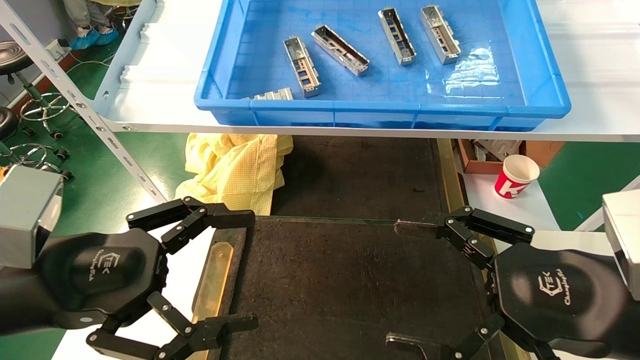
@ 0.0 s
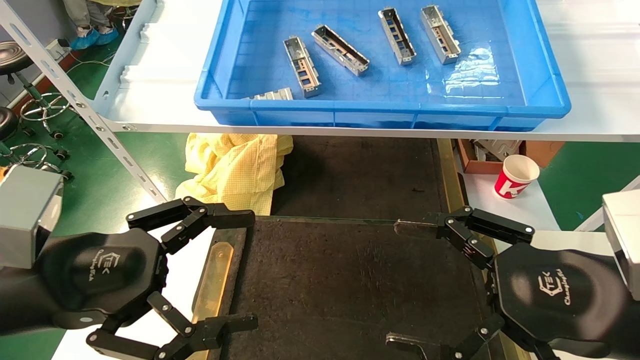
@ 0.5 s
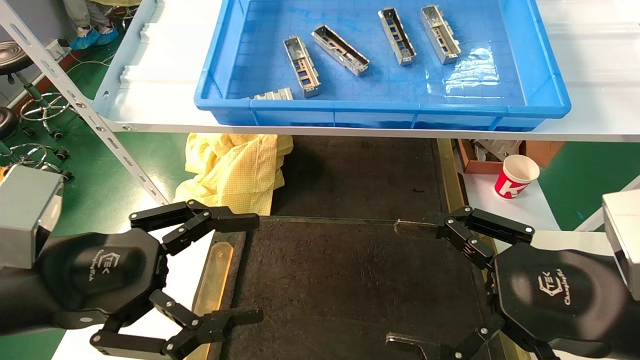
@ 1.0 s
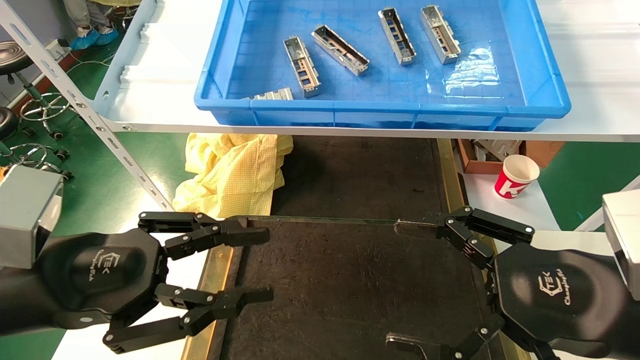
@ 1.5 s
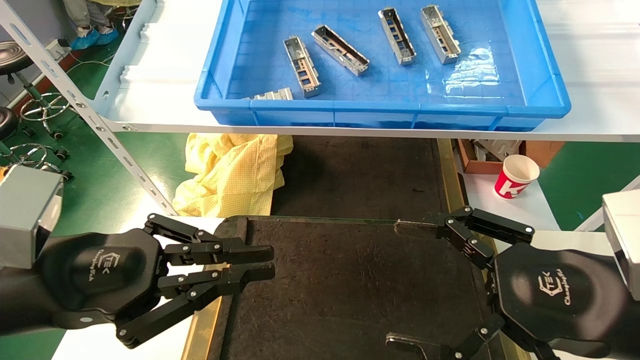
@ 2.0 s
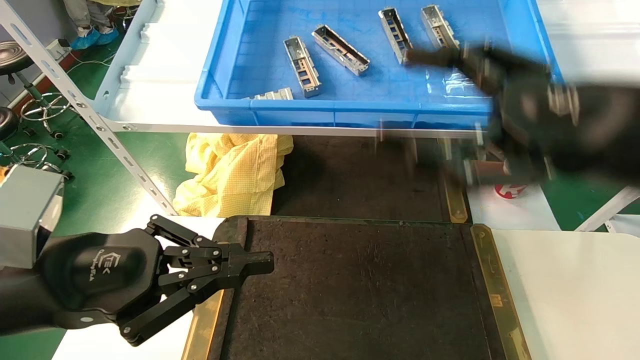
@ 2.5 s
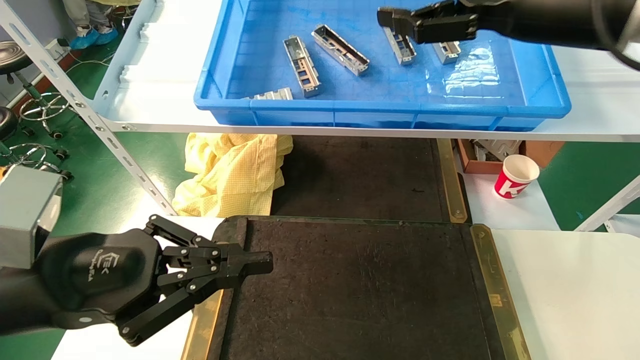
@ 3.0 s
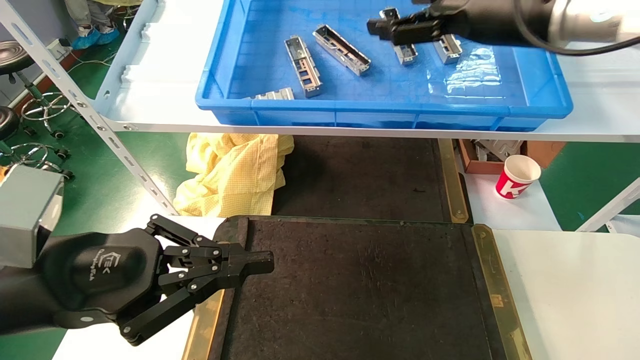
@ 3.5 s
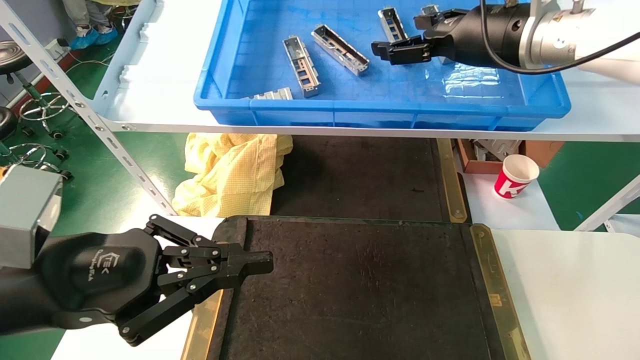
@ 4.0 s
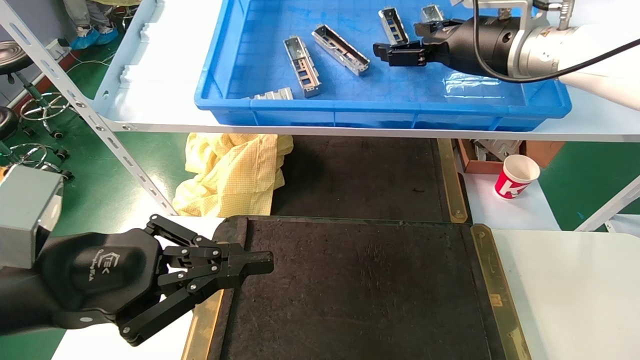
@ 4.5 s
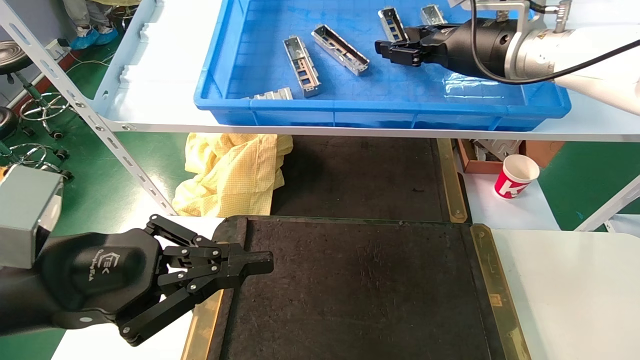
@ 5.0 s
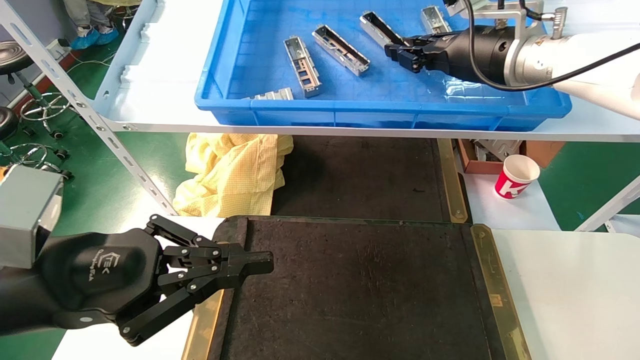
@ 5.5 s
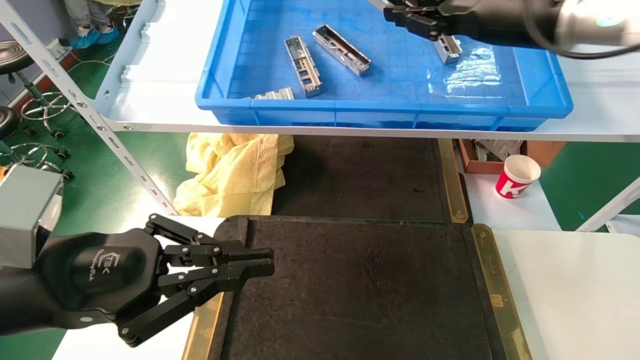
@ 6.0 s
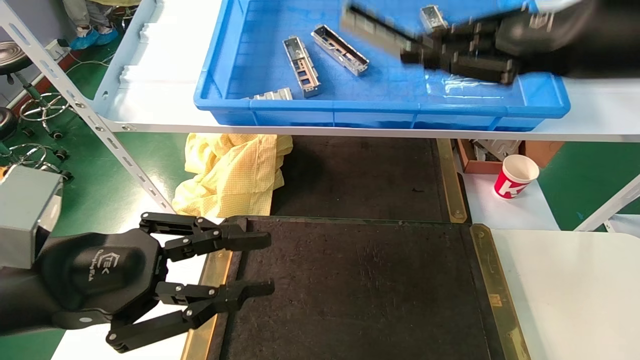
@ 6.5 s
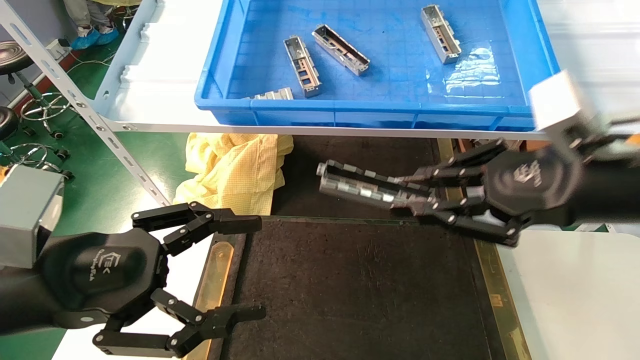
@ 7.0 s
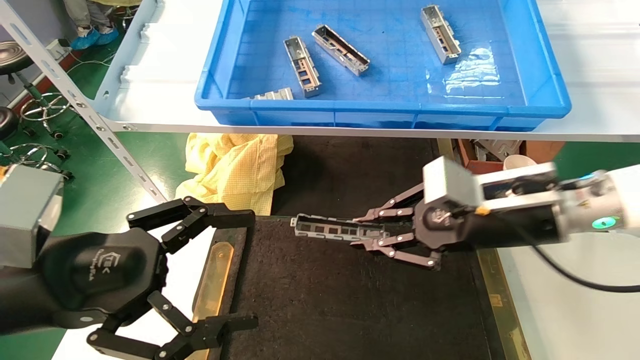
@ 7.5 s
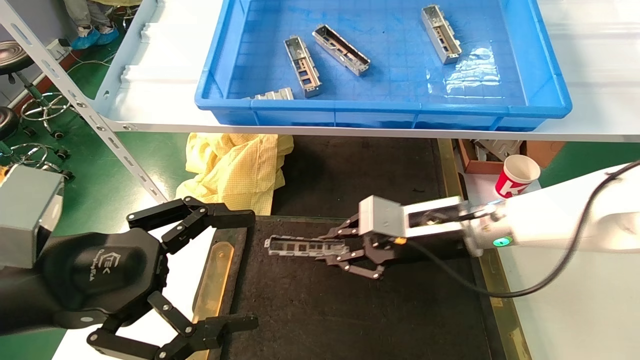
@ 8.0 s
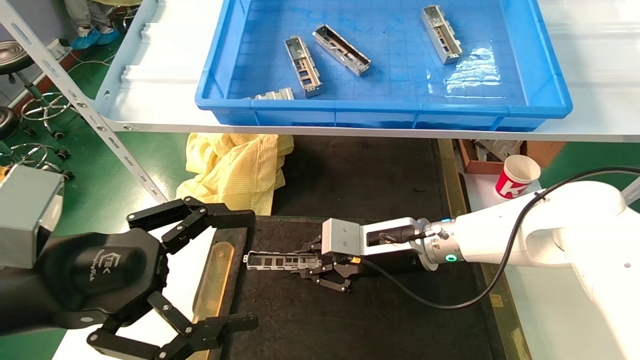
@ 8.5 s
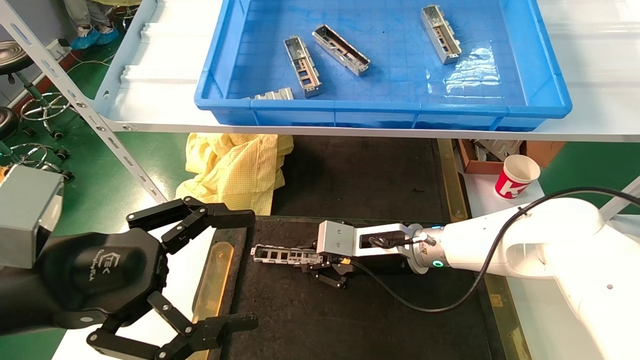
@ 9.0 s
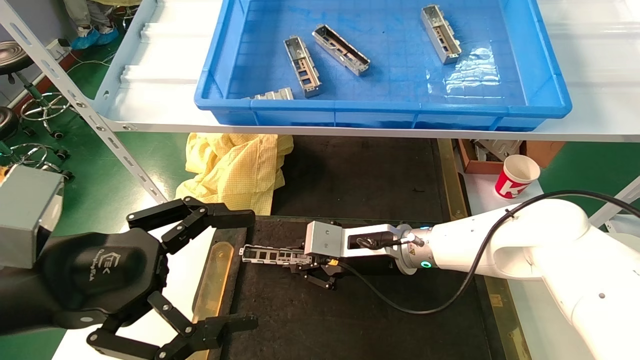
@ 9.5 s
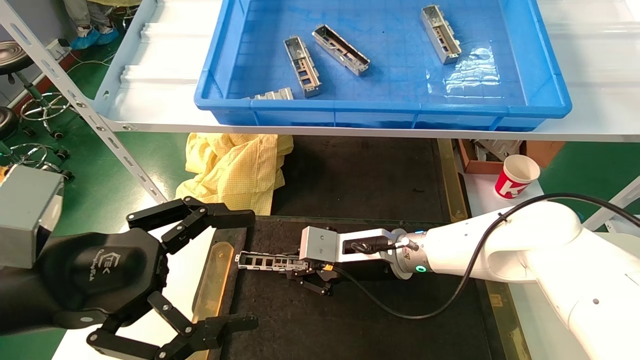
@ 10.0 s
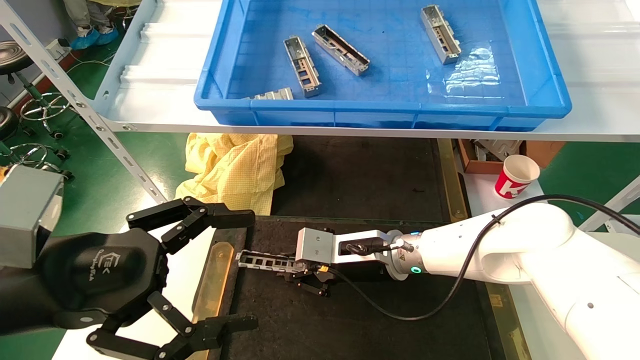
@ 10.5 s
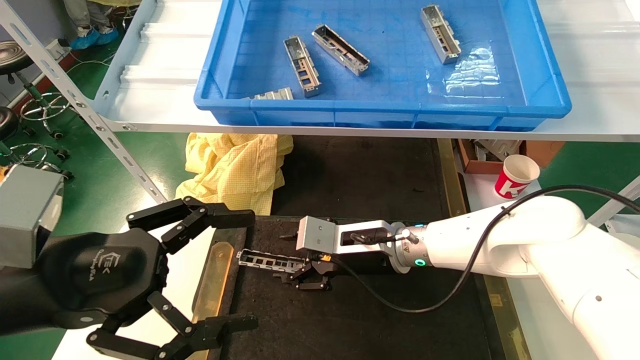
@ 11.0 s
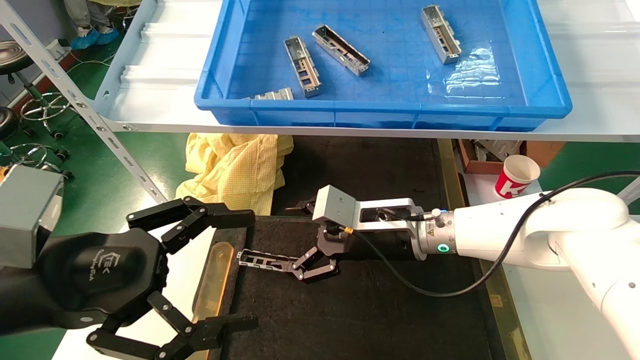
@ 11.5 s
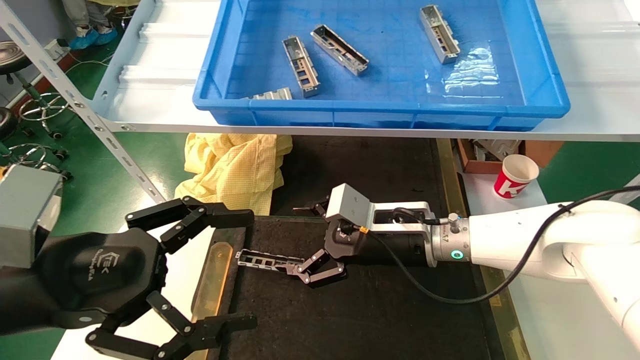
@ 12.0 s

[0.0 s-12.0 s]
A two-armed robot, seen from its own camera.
Task of the whole recording: grasp the part and place them on the black container.
Step, 2.5 to 5.5 s: Pick up and lift the front USB bracket from the feeding area.
Step, 6.0 to 10.5 s: Place the front USB bracket into the box.
0.0 to 2.0 s: The left gripper closes.
2.0 to 4.0 s: The right gripper travels forward and upward by some 30 cm.
4.0 to 6.0 s: The right gripper shifts by roughly 5 cm, and closes up.
6.0 to 8.0 s: The right gripper is displaced downward by approximately 25 cm; the left gripper opens up.
8.0 to 10.0 s: The right gripper shifts about 10 cm to the left and downward.
10.0 to 12.0 s: The right gripper ends up roughly 5 cm from where it was, and opens.

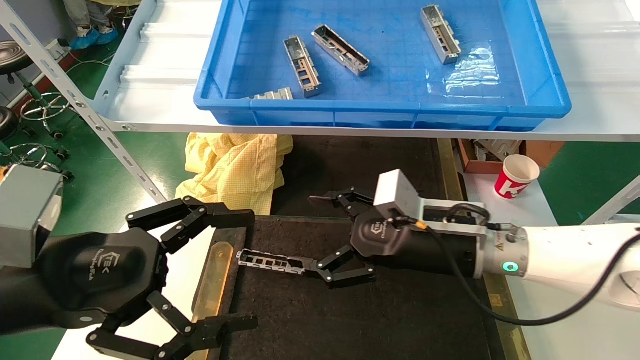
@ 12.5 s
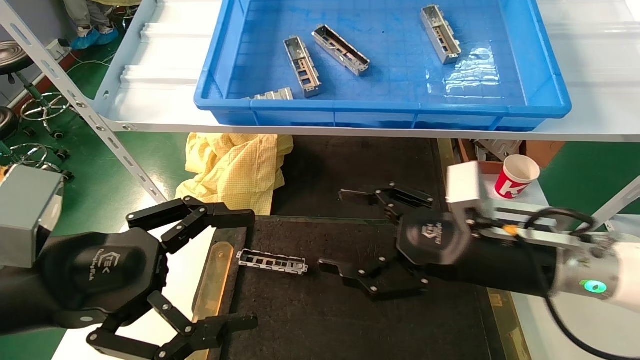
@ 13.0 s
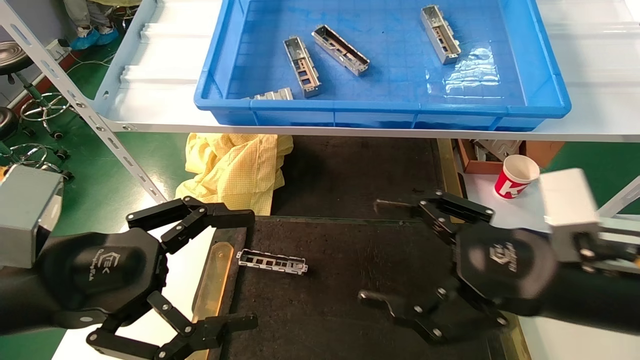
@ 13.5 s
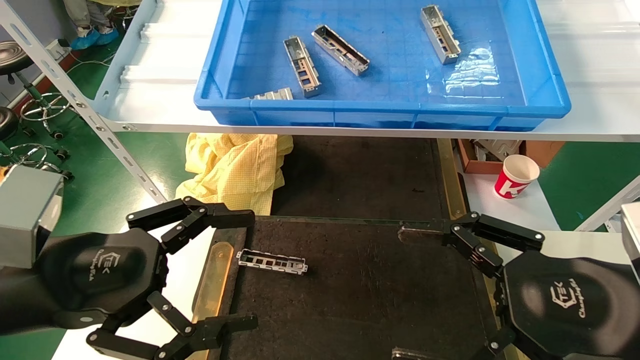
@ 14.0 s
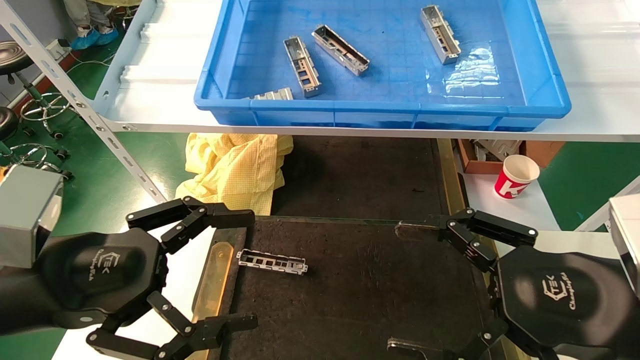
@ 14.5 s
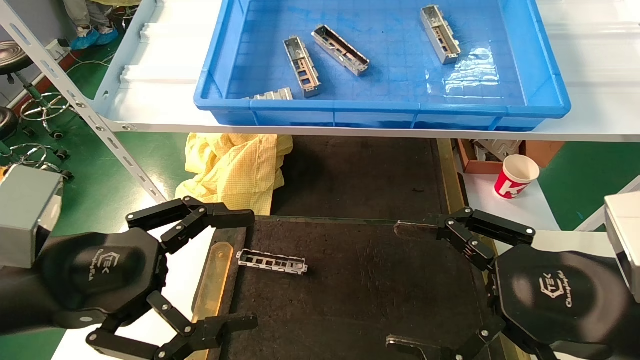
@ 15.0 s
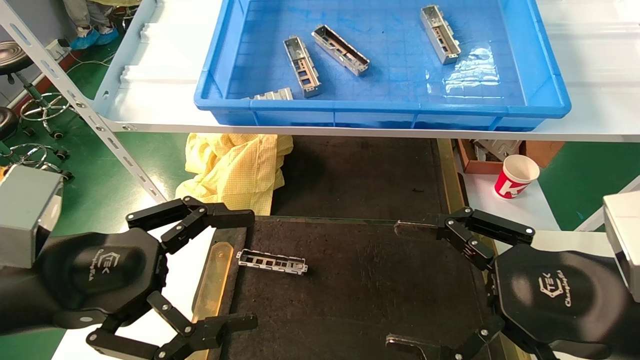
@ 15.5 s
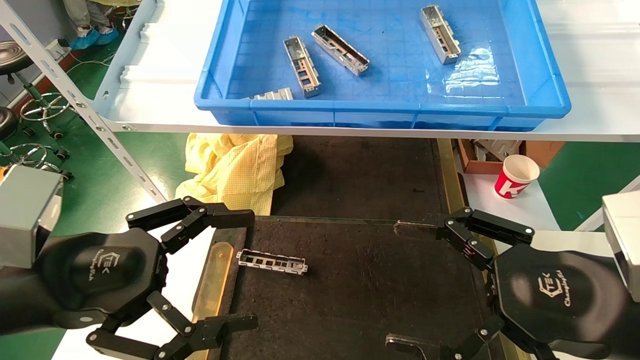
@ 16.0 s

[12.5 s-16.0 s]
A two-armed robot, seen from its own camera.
Task of the whole recording: grasp the part and place them on the black container.
12.5 to 14.5 s: The right gripper shifts some 20 cm backward and to the right.
14.5 to 16.0 s: Neither gripper changes place.
